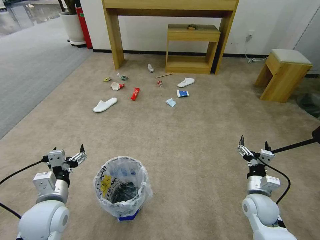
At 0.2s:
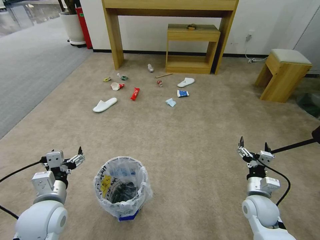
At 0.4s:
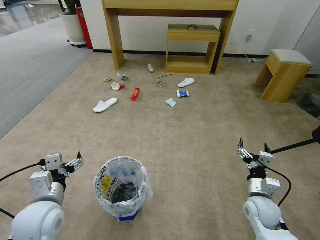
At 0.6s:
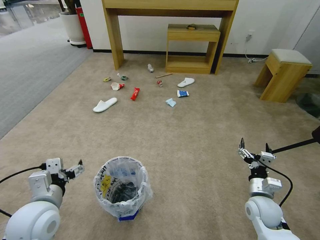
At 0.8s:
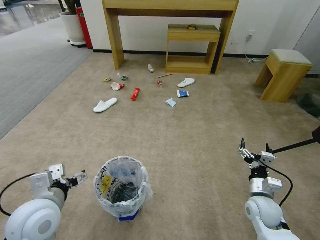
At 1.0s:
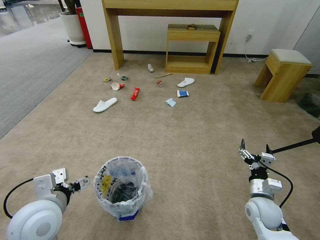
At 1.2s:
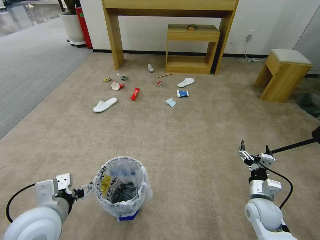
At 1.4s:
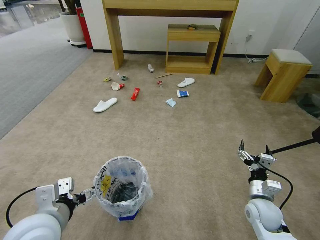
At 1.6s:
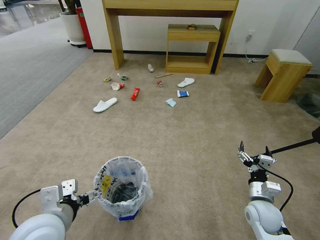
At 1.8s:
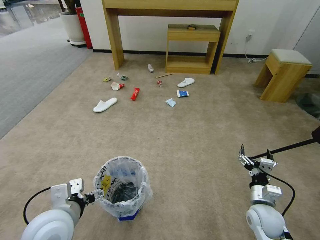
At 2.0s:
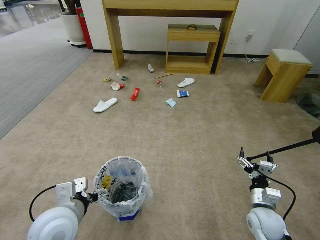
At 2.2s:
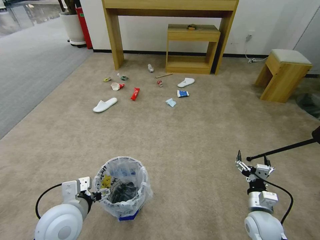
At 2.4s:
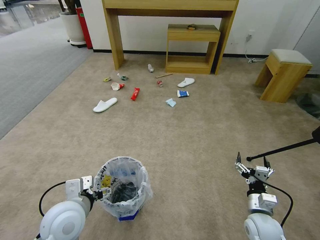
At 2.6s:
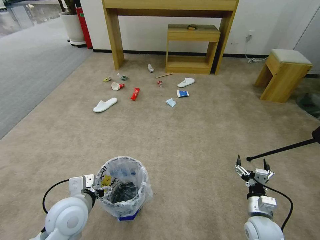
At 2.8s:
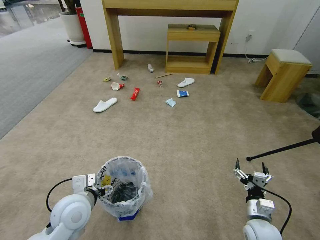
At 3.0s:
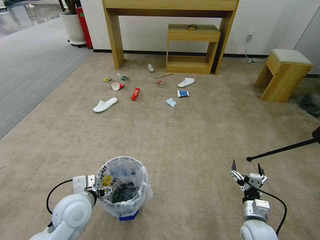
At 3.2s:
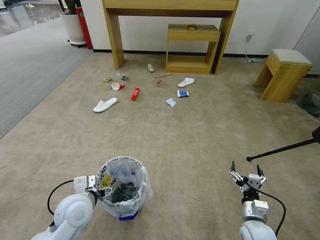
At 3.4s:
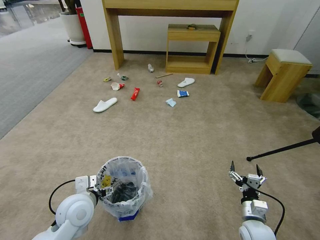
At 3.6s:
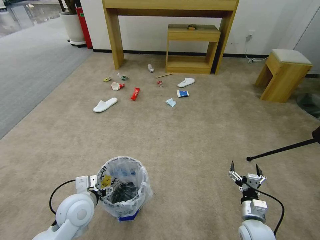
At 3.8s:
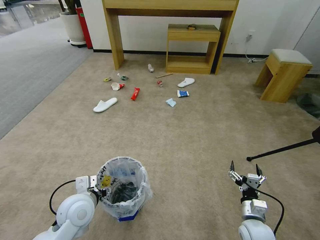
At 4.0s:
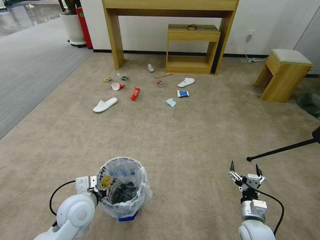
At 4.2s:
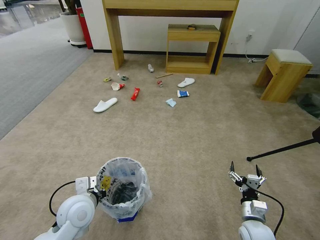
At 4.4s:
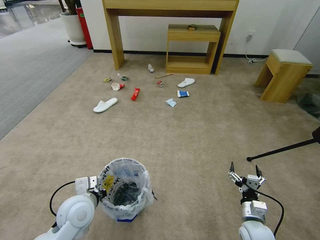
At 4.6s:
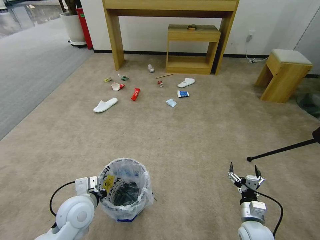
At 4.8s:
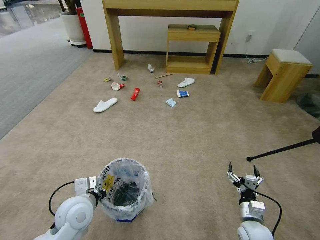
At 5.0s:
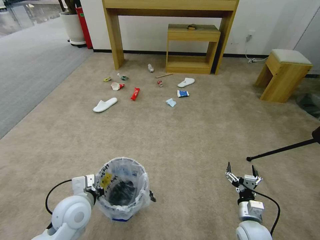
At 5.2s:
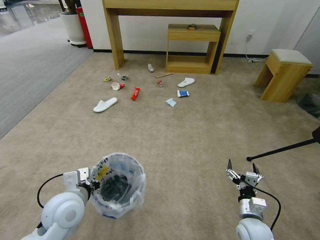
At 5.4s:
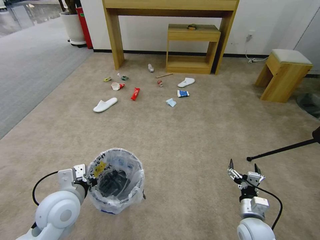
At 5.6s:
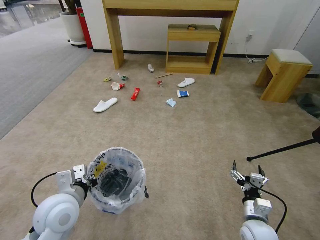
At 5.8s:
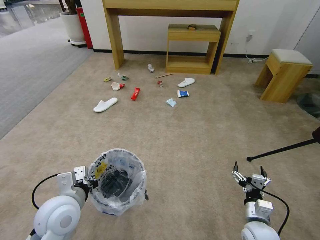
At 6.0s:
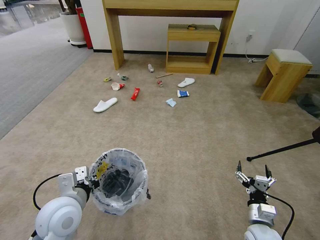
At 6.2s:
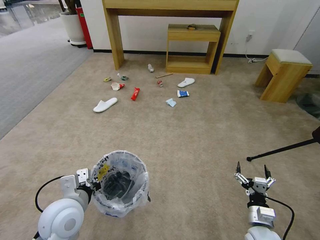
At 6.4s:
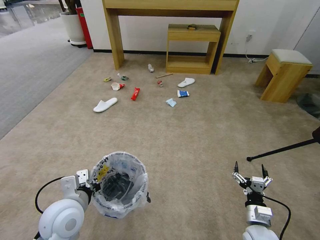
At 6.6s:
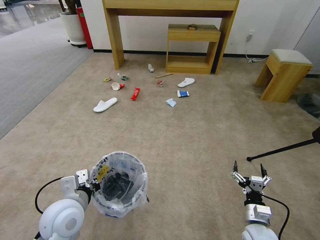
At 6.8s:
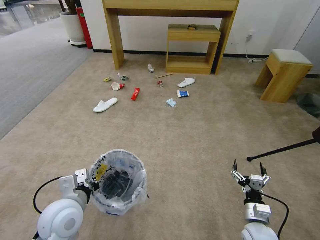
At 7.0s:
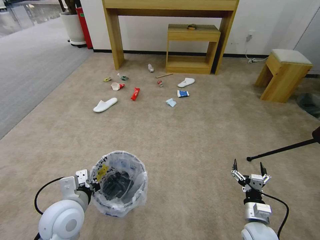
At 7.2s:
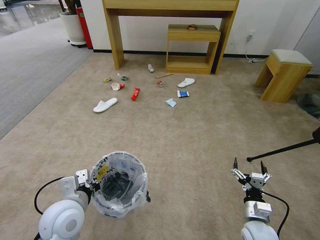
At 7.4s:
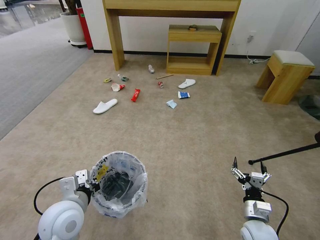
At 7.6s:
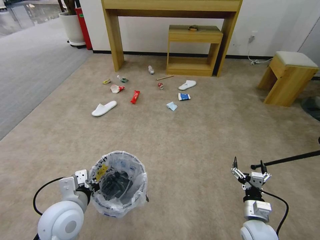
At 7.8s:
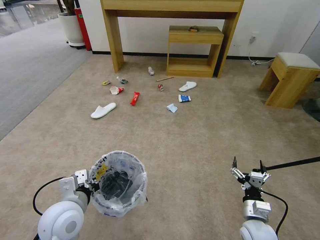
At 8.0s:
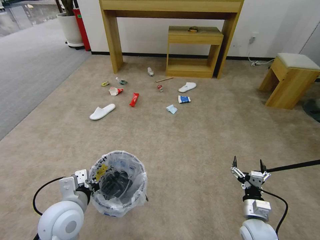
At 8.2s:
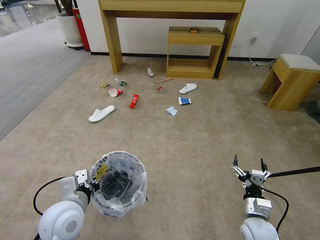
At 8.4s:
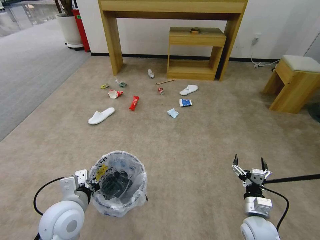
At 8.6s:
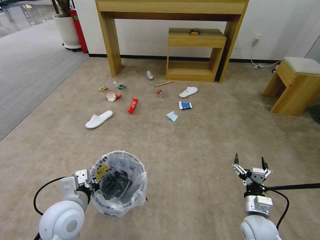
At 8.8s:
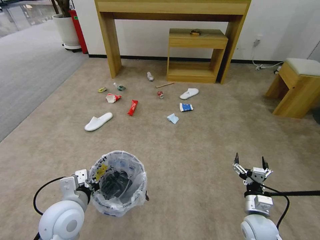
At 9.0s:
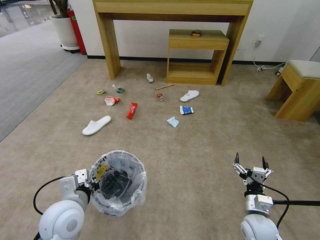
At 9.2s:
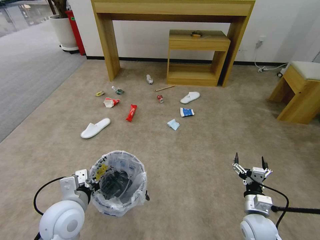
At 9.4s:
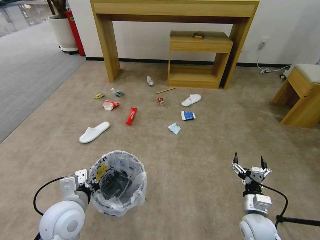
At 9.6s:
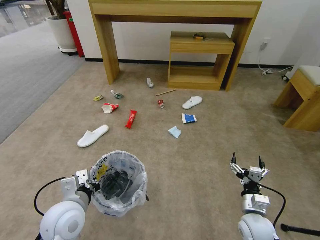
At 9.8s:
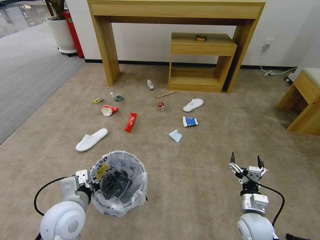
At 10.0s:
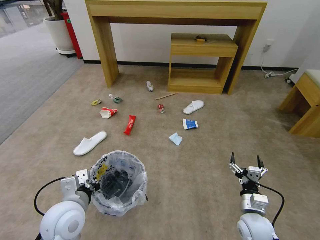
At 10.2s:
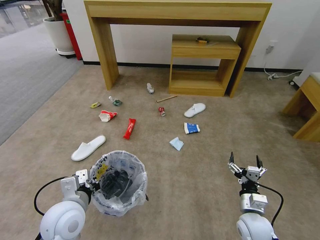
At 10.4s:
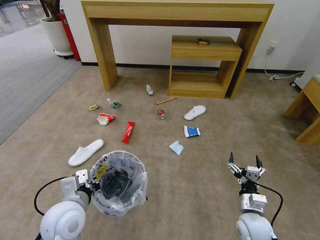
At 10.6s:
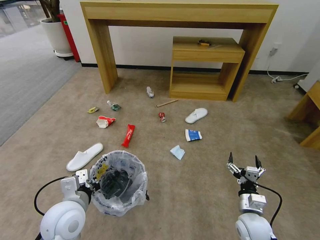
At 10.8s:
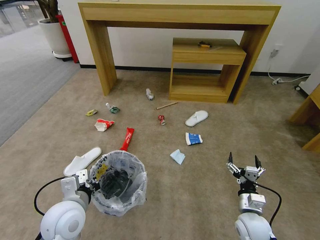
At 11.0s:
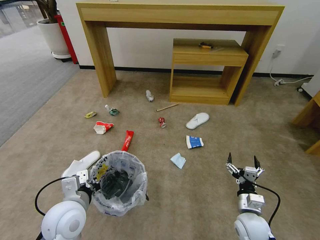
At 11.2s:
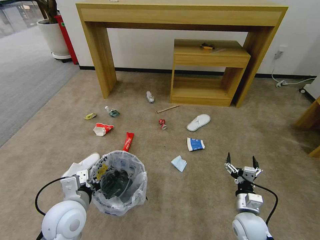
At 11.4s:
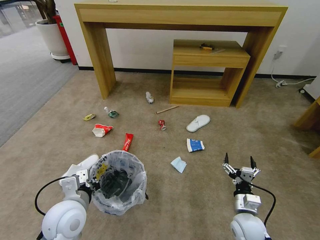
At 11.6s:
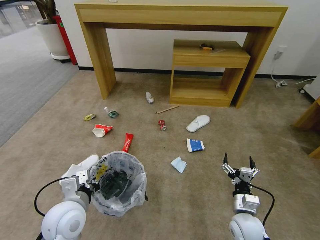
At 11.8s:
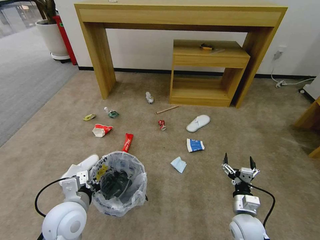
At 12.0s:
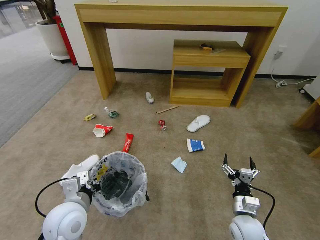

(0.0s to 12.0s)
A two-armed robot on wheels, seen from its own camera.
Task of the whole recording: Pick up the trash bin and place the garbage on the floor into it.
1.6s - 3.0s: The left gripper shifts about 10 cm downward and forward. The right gripper changes place by some 5 cm.
3.0s - 4.4s: The left gripper closes.
4.4s - 6.0s: The left gripper goes approximately 5 cm upward.
6.0s - 7.6s: The grippers make only small movements.

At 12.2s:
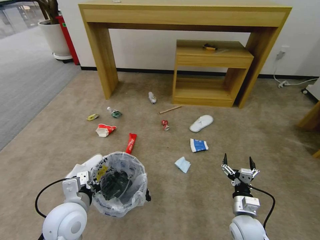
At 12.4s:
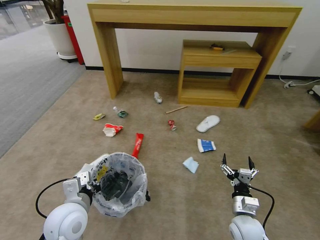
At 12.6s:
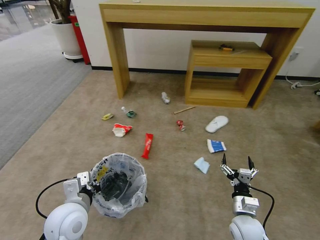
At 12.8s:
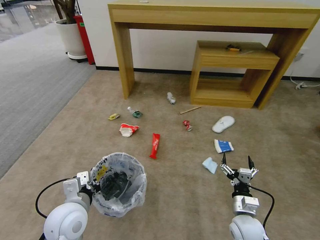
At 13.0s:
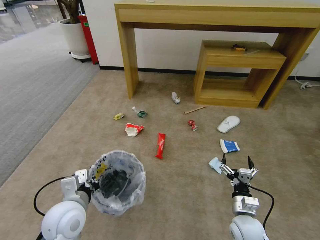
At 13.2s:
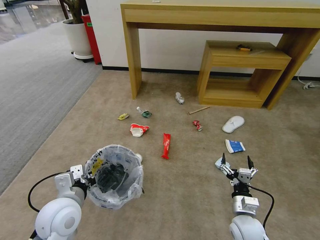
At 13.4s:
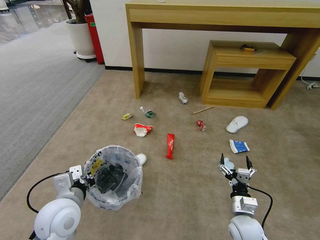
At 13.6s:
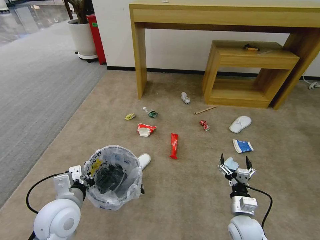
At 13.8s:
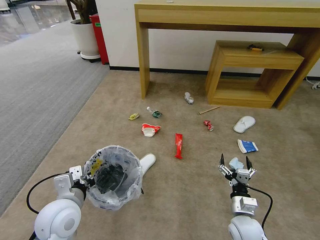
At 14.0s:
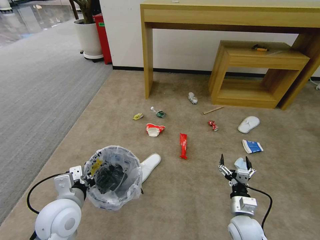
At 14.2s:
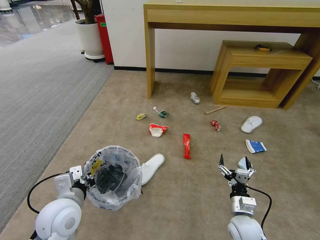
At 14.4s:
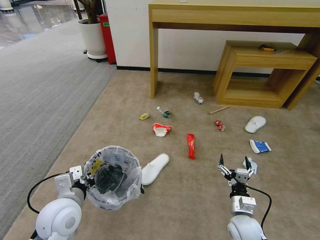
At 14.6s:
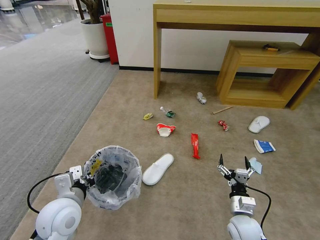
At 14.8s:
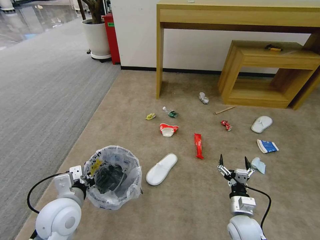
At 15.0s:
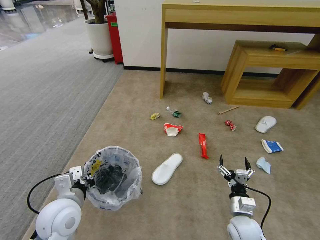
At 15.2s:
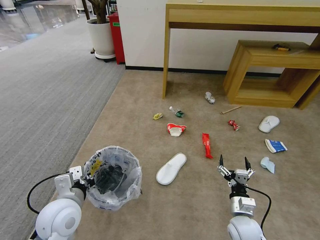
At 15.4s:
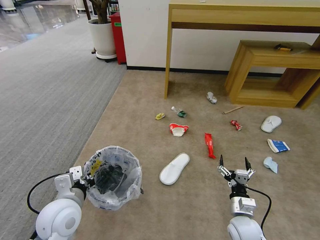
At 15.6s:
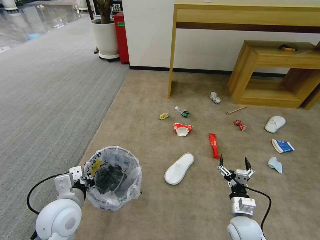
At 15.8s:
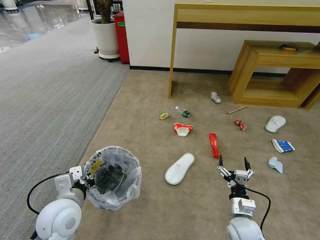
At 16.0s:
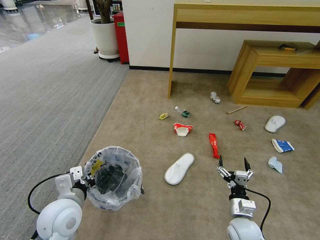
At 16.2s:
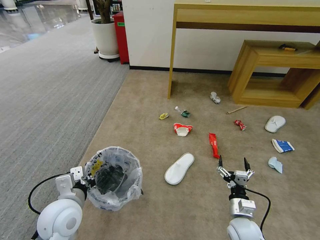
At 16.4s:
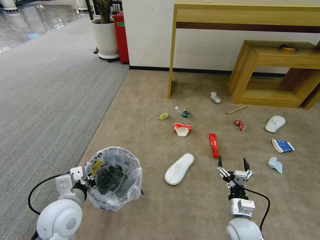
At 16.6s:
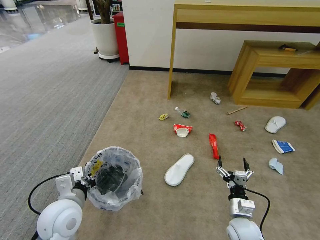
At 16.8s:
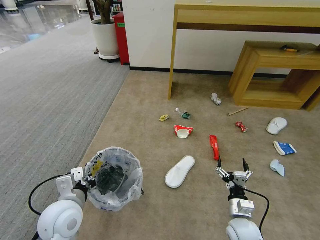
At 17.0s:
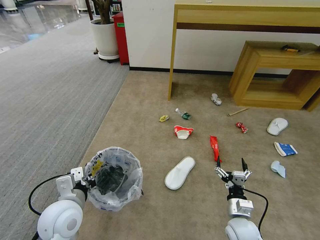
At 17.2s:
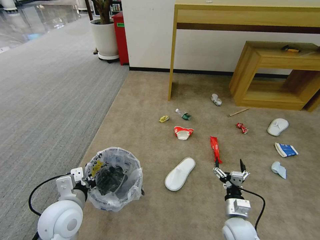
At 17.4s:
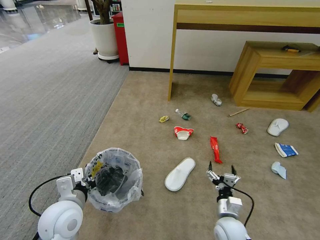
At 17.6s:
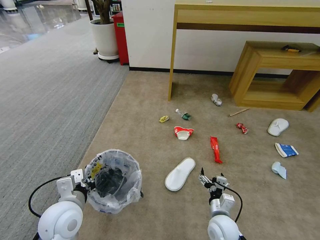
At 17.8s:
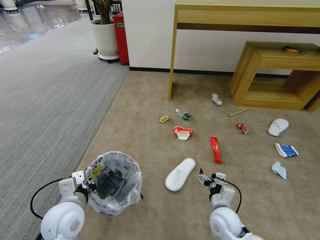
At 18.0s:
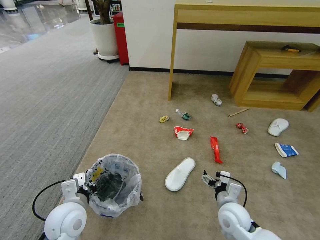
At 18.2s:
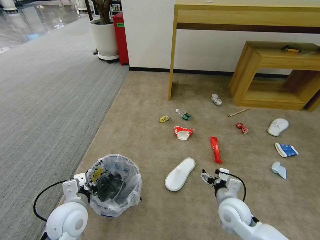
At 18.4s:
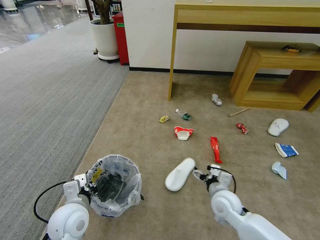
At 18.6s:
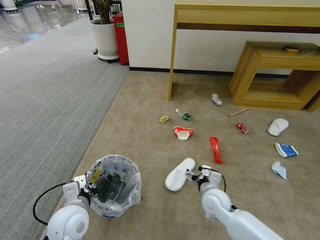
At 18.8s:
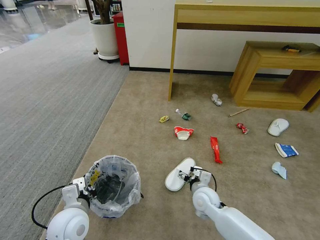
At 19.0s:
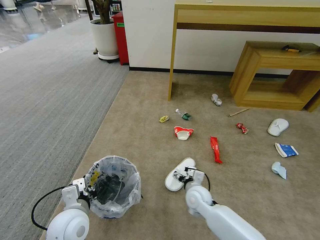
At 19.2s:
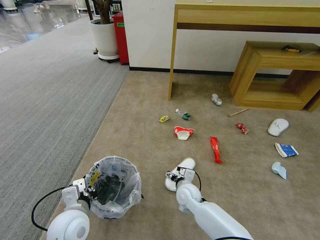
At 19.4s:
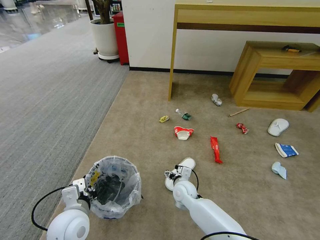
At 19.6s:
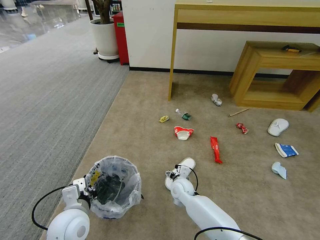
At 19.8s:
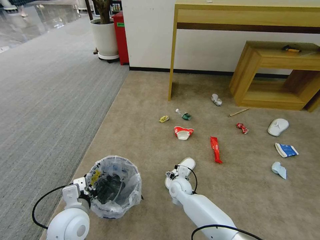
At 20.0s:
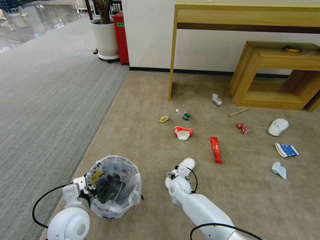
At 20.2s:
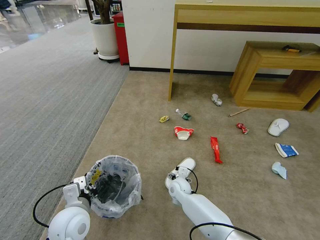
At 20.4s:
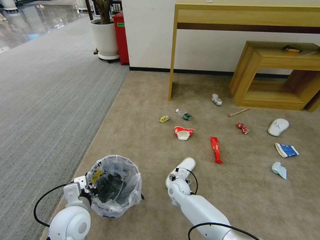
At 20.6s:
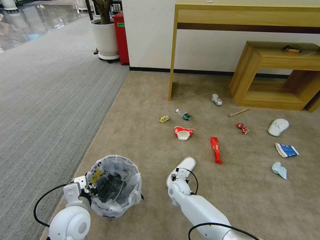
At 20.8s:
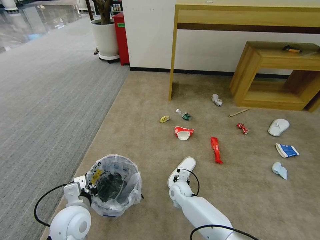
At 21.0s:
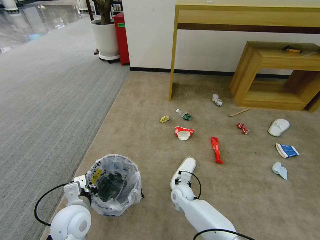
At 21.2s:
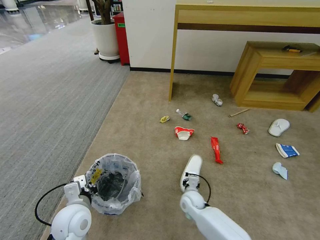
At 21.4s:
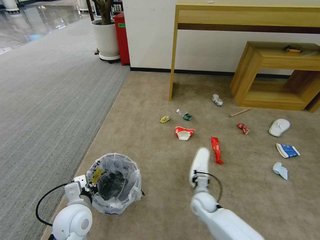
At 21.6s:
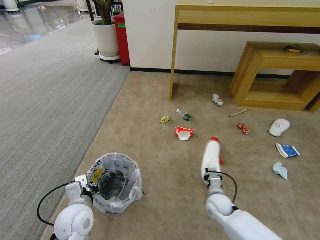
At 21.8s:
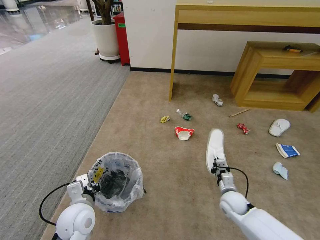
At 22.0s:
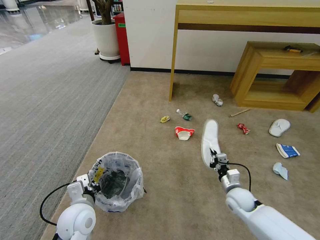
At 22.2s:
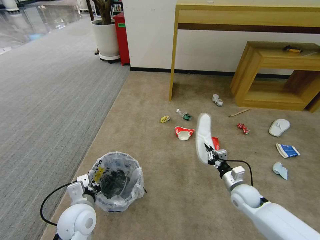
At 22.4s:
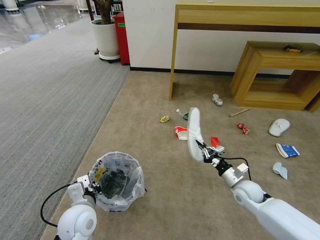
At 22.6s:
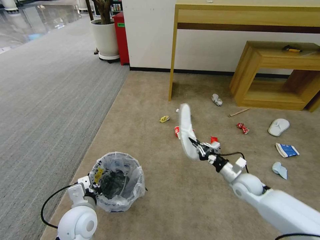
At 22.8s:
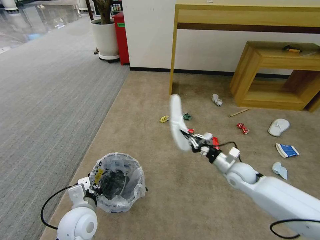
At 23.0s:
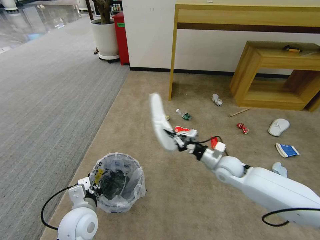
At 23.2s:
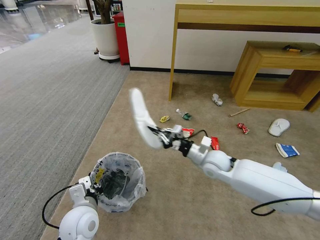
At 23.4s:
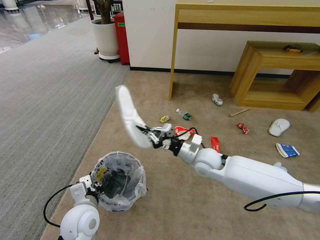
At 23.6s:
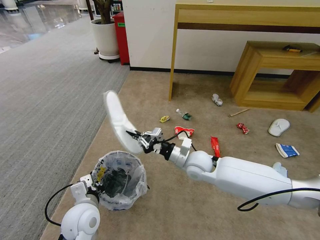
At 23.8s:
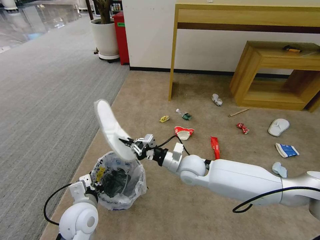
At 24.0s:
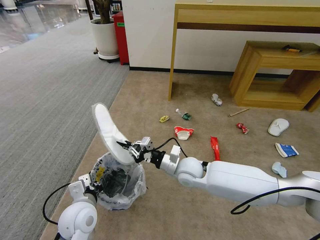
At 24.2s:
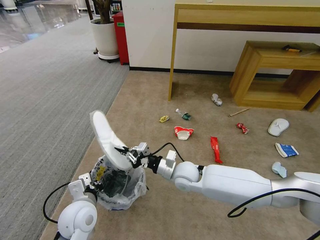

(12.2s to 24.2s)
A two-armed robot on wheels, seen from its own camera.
Task of the whole recording: Pick up the trash bin and place the garbage on the floor into it.
15.2s - 16.6s: Both grippers stay about where they are.
16.6s - 18.2s: The right gripper travels forward and upward by some 5 cm.
18.2s - 19.8s: The right gripper goes some 20 cm to the left, forward and downward.
19.8s - 21.2s: The right gripper shifts by roughly 5 cm, and closes its fingers.
21.2s - 22.6s: The right gripper heads to the right and upward, covering some 25 cm.
22.6s - 24.2s: The right gripper moves to the left, roughly 25 cm.
